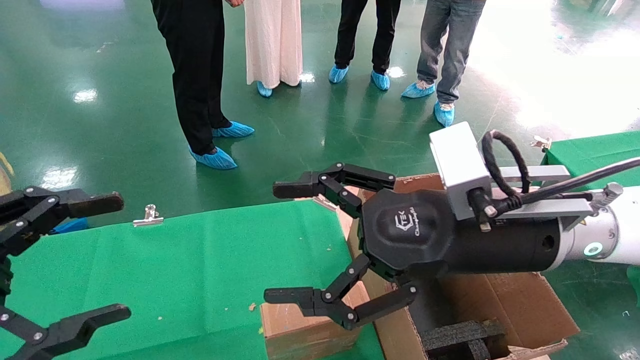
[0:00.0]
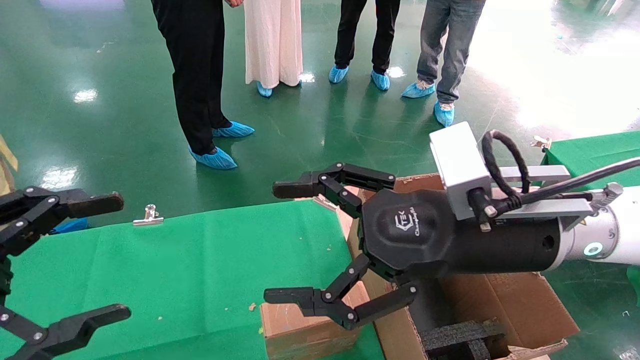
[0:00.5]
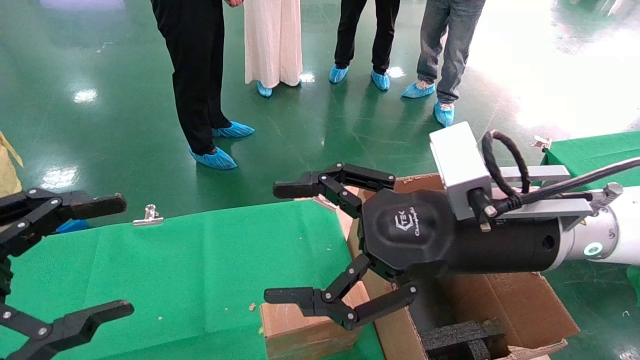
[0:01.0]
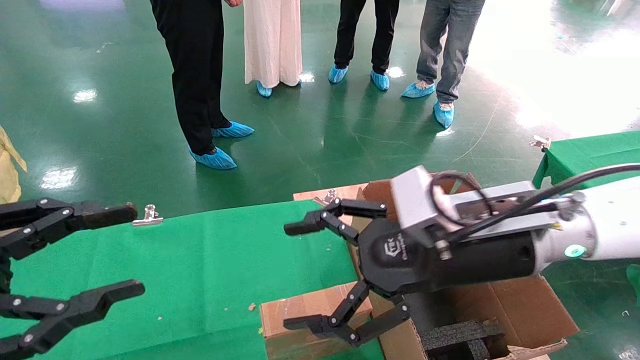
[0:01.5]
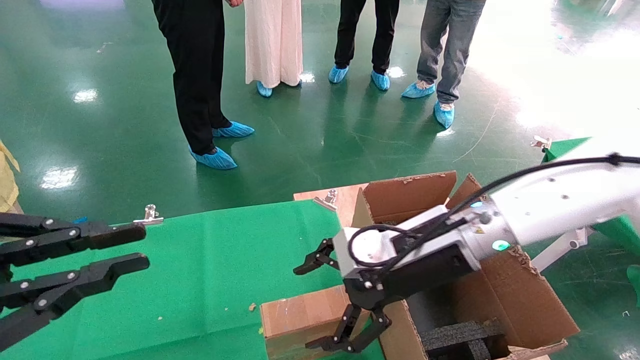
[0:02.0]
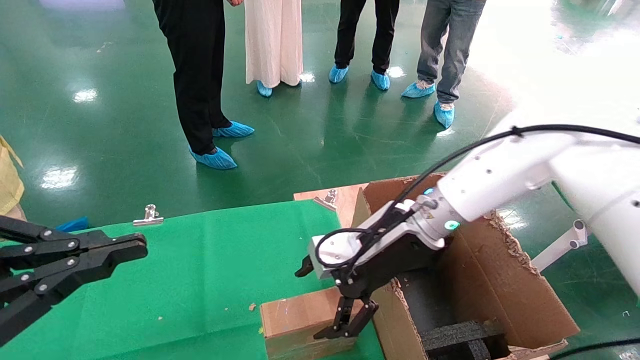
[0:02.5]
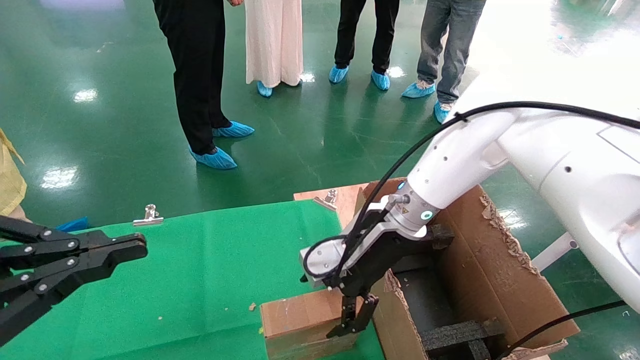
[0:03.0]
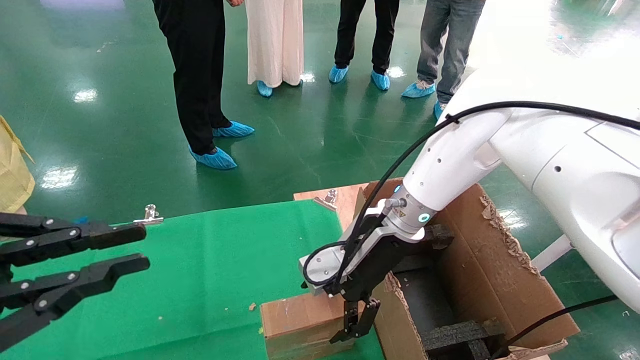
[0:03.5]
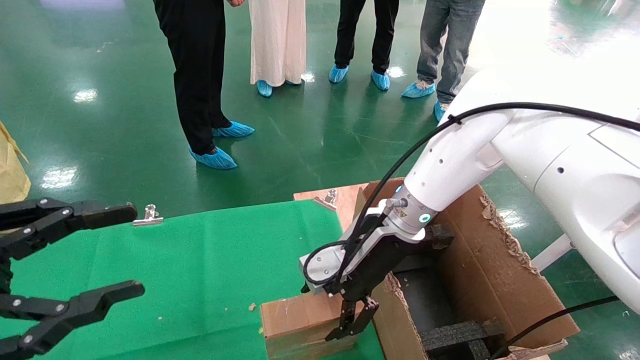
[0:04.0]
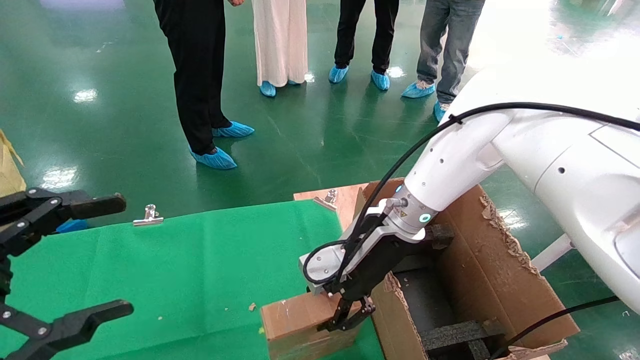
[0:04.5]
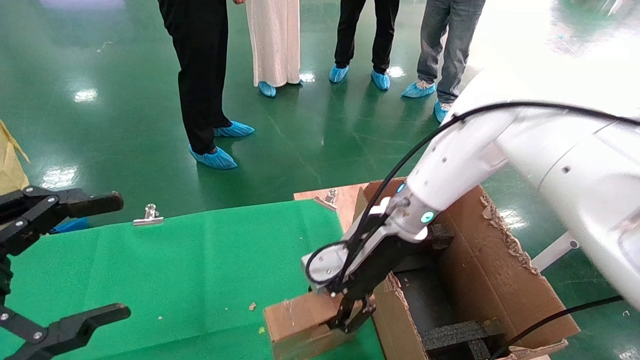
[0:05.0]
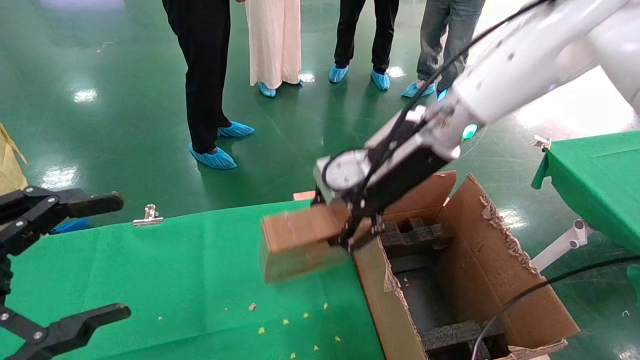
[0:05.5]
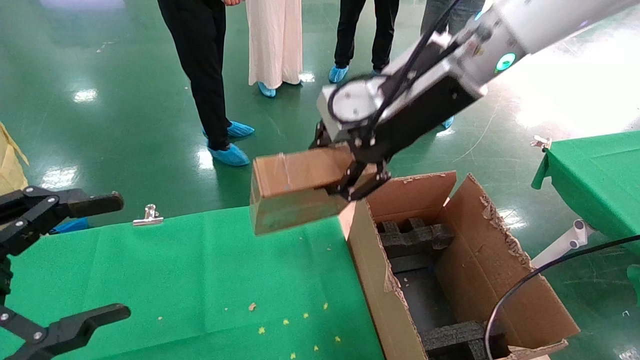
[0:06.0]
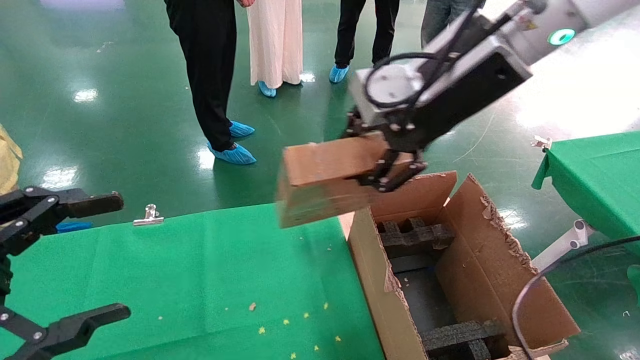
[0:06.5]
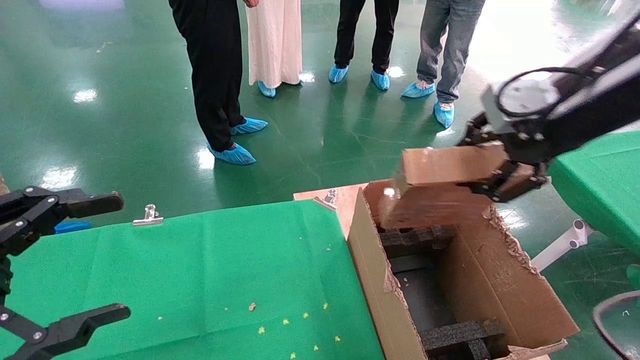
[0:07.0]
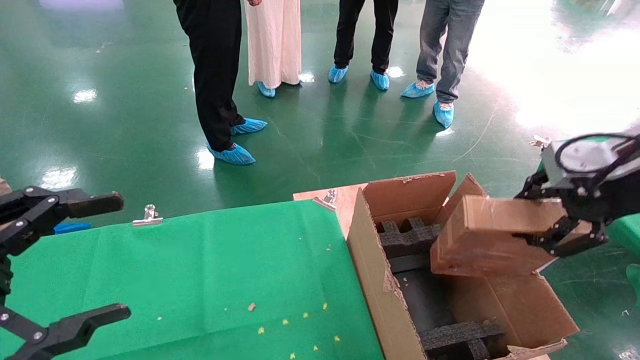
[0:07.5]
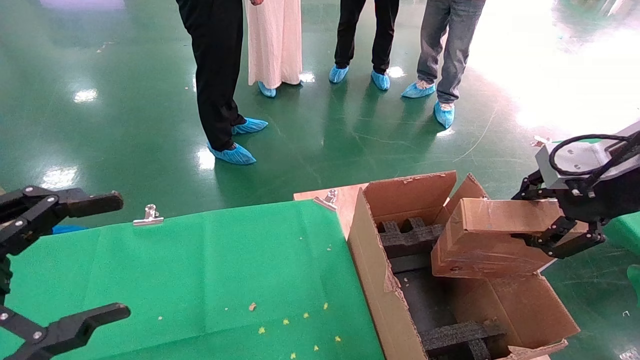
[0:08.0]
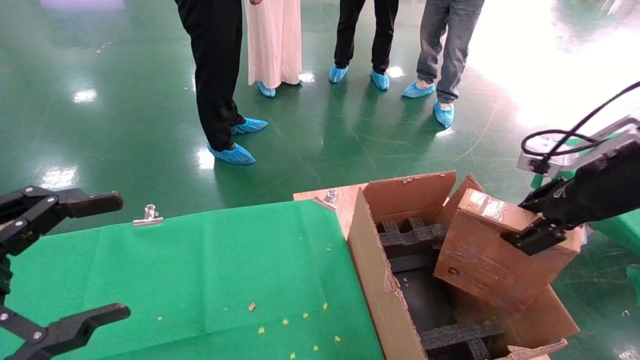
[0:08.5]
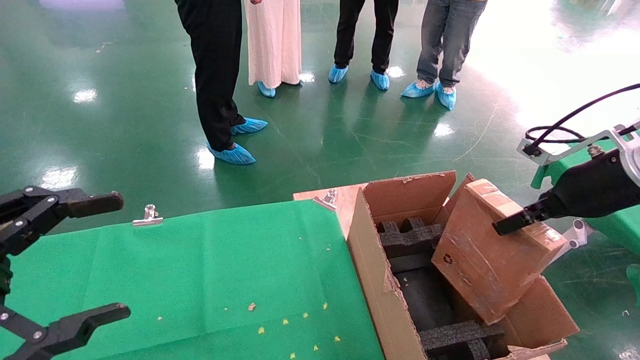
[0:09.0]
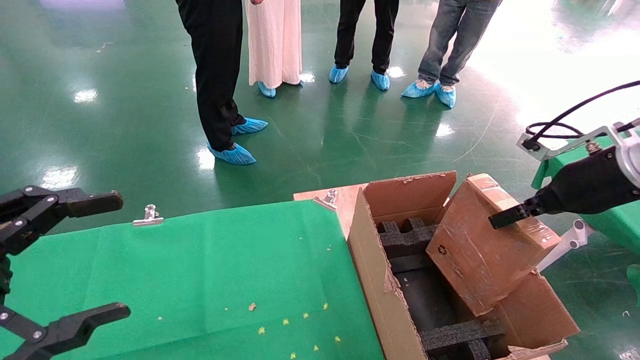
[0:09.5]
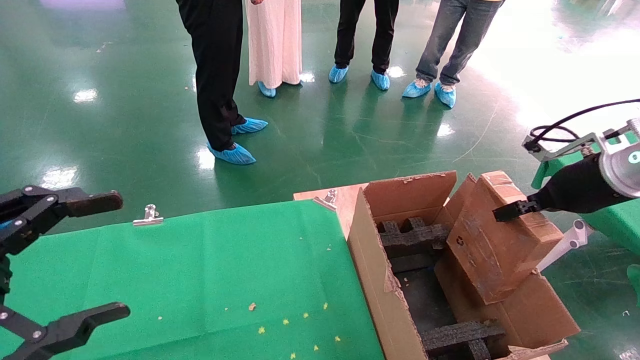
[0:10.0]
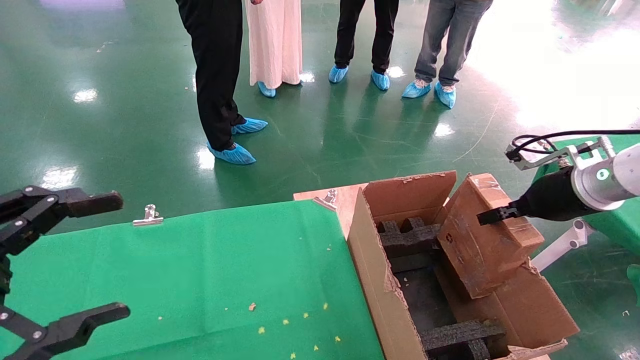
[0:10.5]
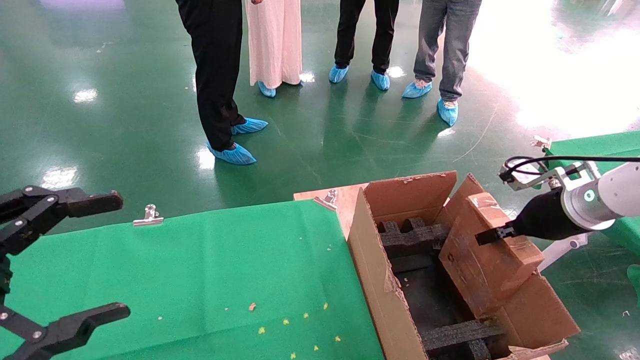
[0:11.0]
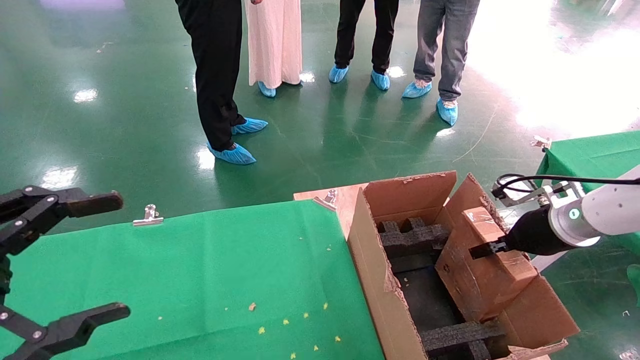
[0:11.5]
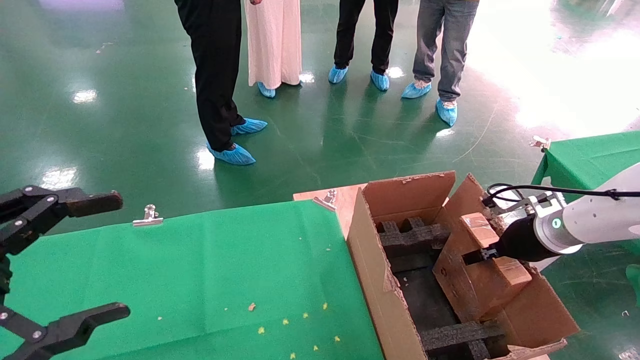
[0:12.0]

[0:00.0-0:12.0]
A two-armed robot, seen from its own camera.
Task of the whole recording: using a robotic arm to pick up a cardboard box and palace it the carton.
Step, 0:01.5 to 0:04.5: Pick up the mouse and the power cord paper box.
0:00.0 to 0:02.0: The left gripper closes its fingers. Meanwhile the right gripper travels forward and downward by roughly 10 cm.
0:02.0 to 0:04.0: The right gripper shifts some 5 cm forward.
0:04.0 to 0:06.0: The left gripper opens its fingers. The right gripper travels upward by roughly 20 cm, and closes.
0:06.0 to 0:08.0: The right gripper shifts roughly 25 cm to the right and backward.
0:08.0 to 0:10.0: The right gripper moves forward and downward, about 10 cm.
0:10.0 to 0:12.0: The right gripper travels downward by approximately 10 cm.

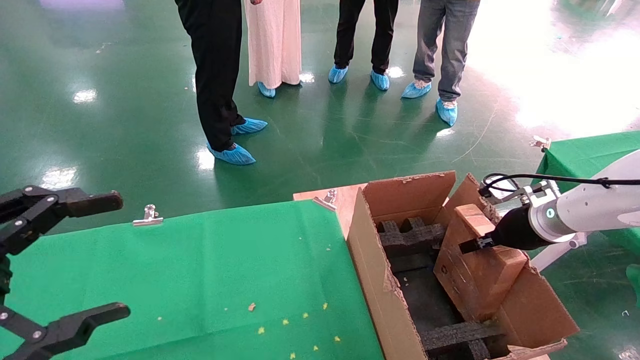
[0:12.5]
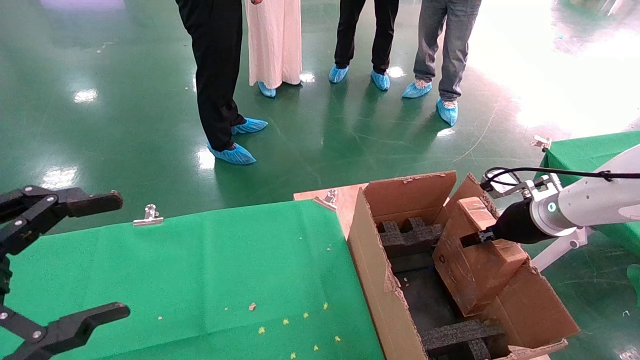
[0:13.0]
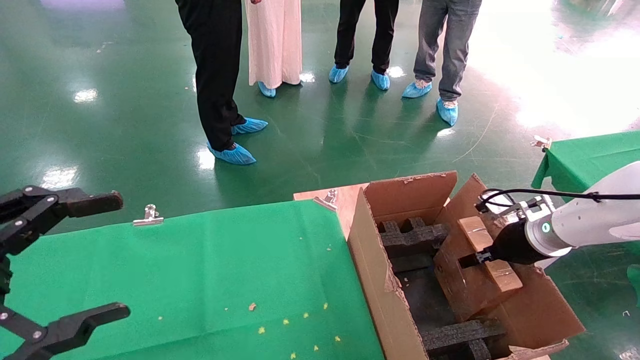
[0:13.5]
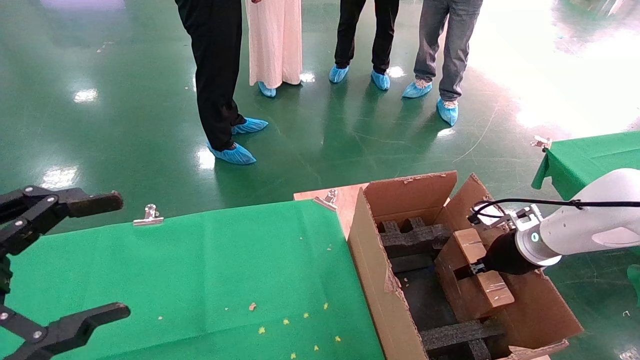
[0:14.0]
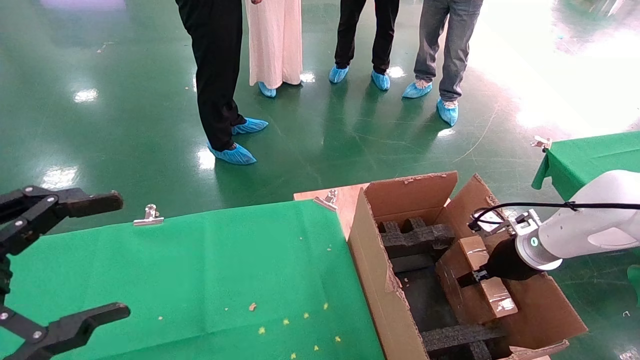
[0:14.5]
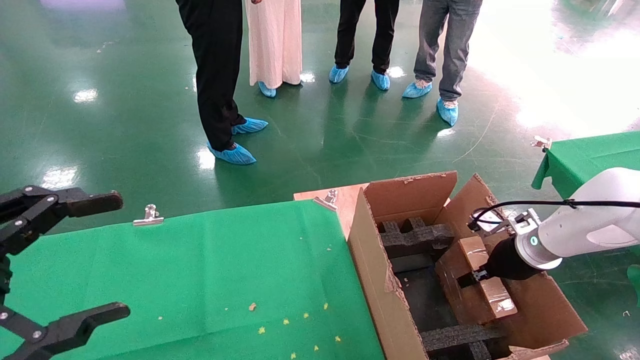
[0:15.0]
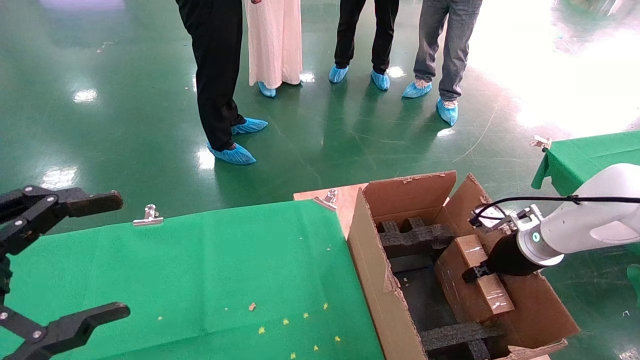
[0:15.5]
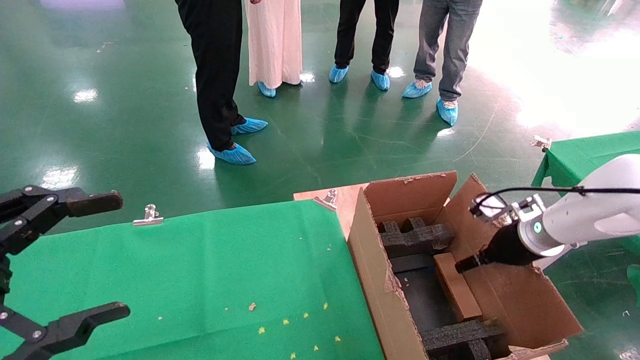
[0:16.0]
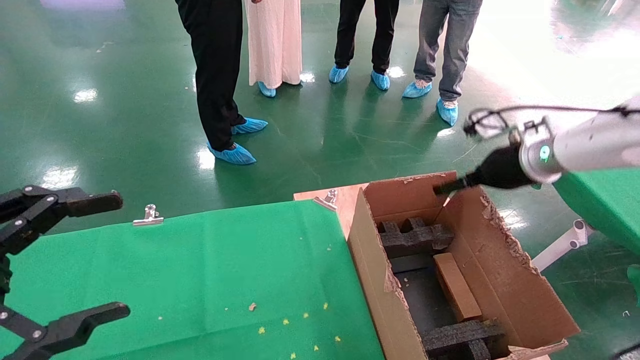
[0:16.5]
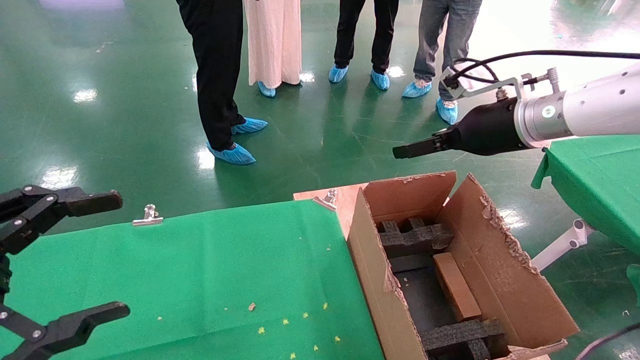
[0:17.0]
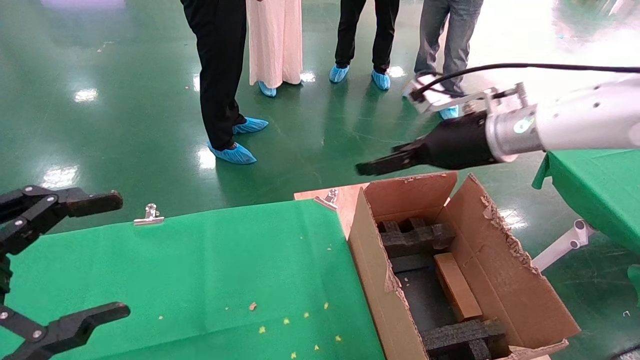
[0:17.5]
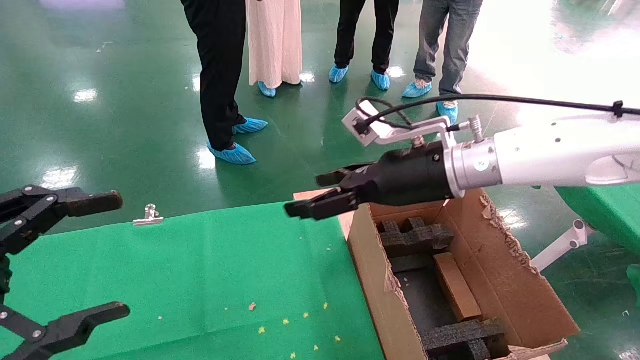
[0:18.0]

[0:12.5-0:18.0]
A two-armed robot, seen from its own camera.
Task of the whole recording: using a robotic arm to pick up a cardboard box and palace it the carton.
Step, 0:12.5 to 0:16.5: Place the mouse and the power cord paper box into the container.
0:12.5 to 0:14.5: The right gripper goes roughly 5 cm downward.
0:14.5 to 0:16.0: The right gripper shifts by some 5 cm, and opens up.
0:16.0 to 0:18.0: The right gripper goes approximately 25 cm to the left and upward.
